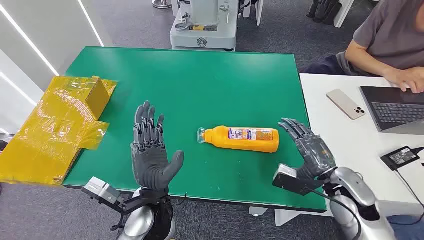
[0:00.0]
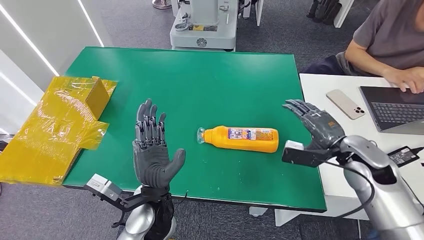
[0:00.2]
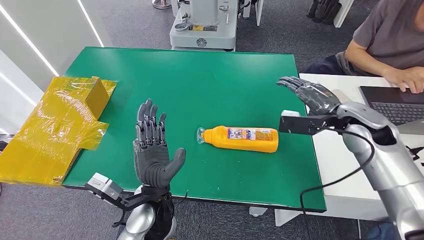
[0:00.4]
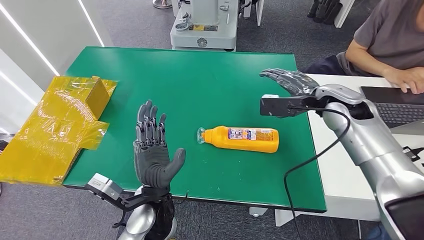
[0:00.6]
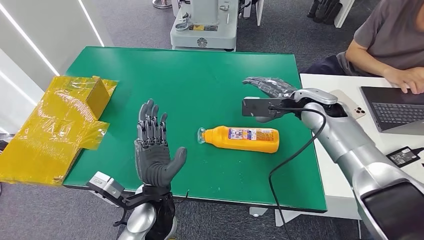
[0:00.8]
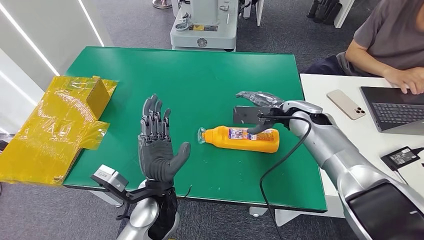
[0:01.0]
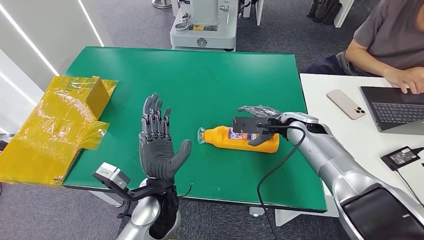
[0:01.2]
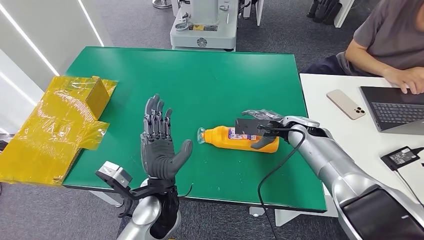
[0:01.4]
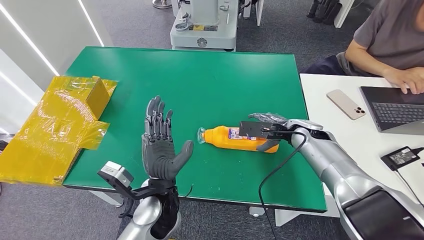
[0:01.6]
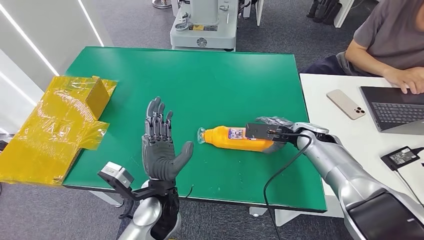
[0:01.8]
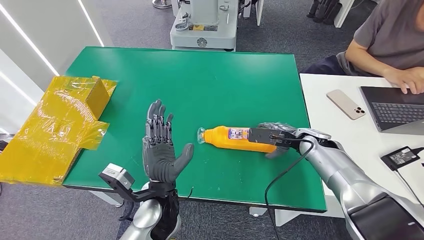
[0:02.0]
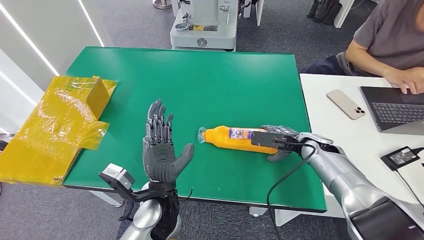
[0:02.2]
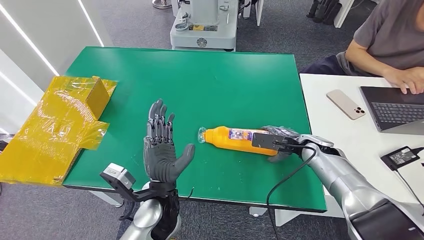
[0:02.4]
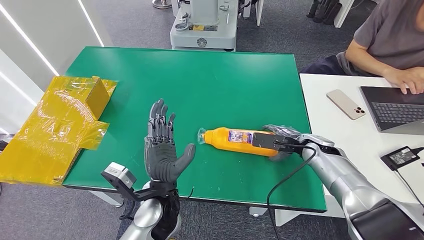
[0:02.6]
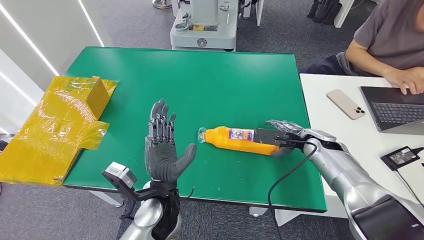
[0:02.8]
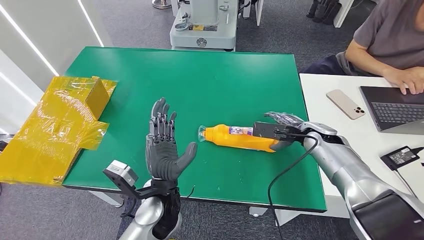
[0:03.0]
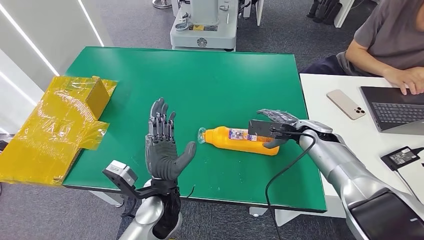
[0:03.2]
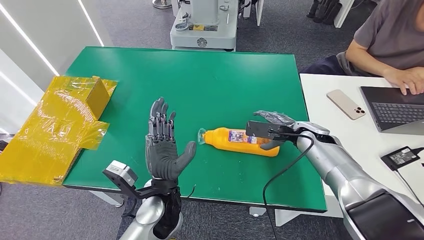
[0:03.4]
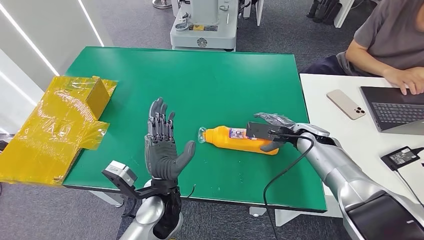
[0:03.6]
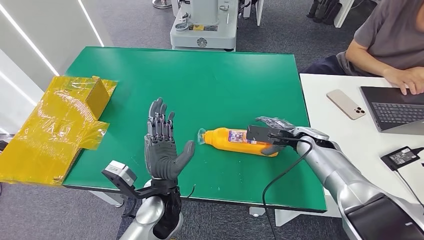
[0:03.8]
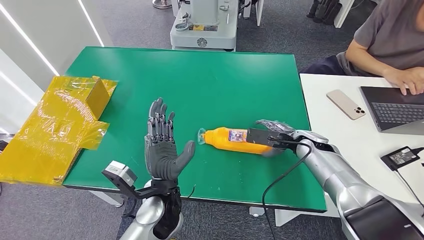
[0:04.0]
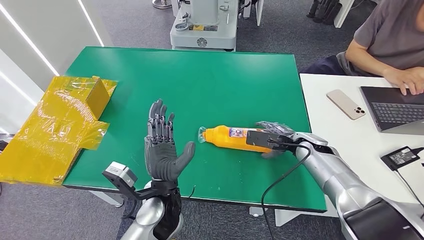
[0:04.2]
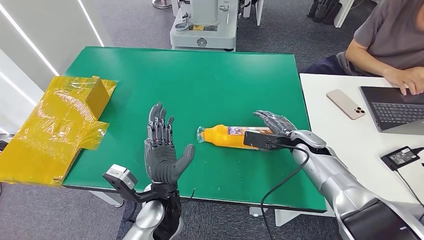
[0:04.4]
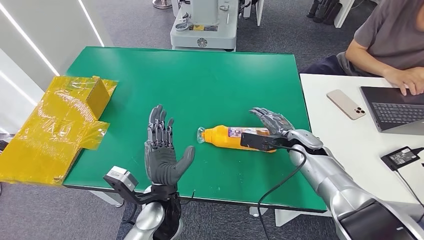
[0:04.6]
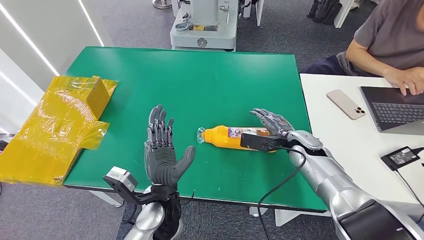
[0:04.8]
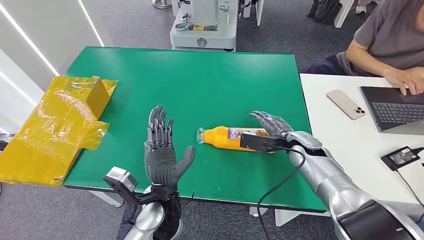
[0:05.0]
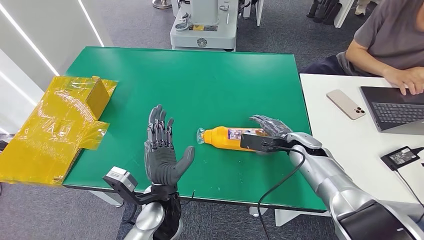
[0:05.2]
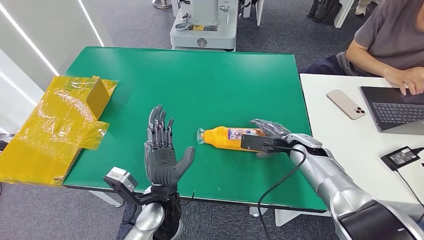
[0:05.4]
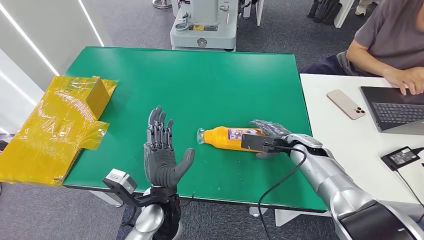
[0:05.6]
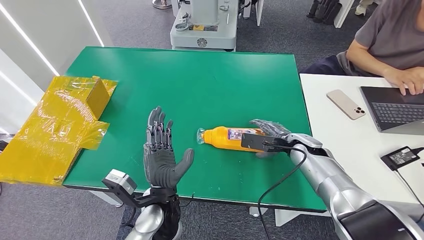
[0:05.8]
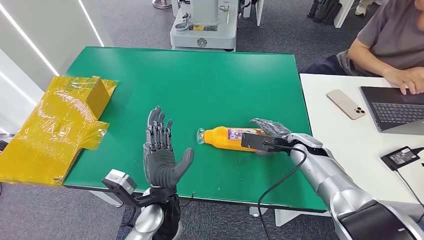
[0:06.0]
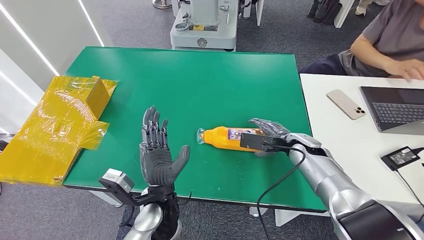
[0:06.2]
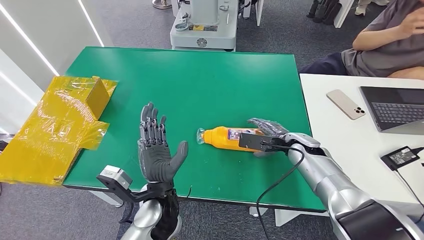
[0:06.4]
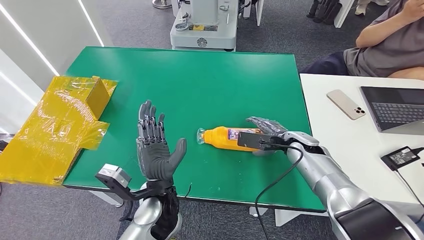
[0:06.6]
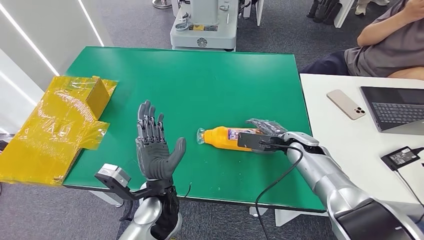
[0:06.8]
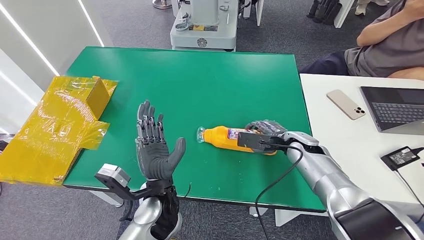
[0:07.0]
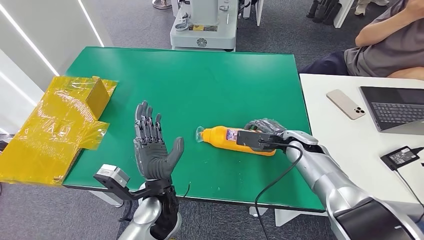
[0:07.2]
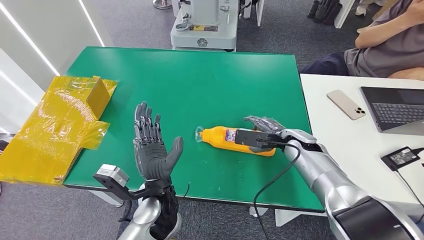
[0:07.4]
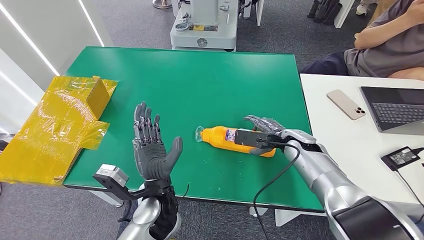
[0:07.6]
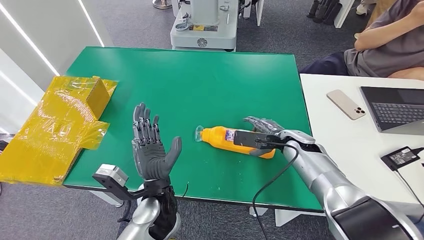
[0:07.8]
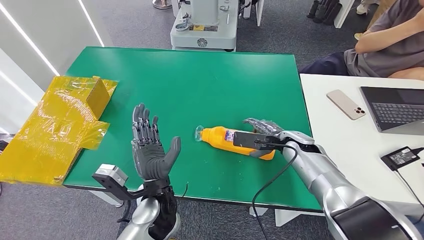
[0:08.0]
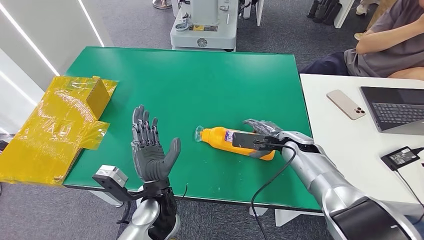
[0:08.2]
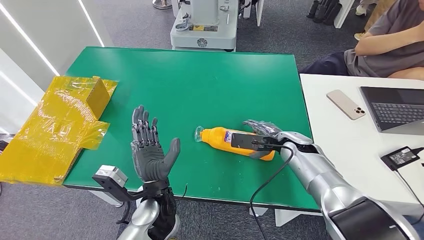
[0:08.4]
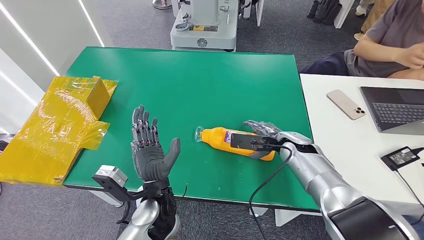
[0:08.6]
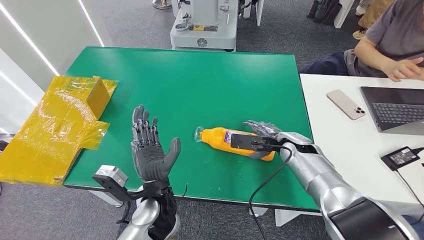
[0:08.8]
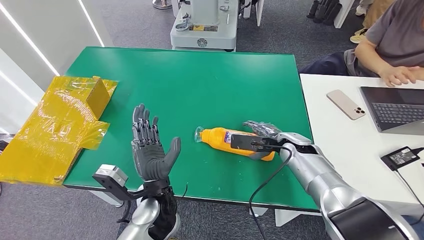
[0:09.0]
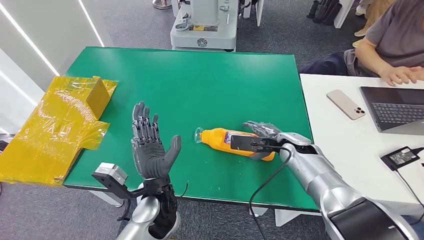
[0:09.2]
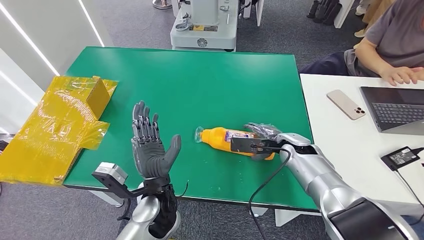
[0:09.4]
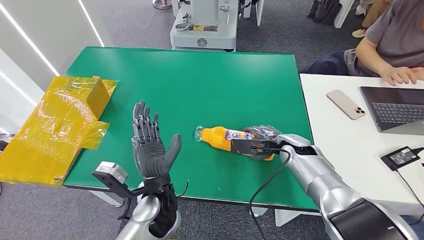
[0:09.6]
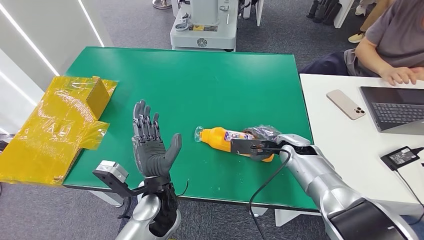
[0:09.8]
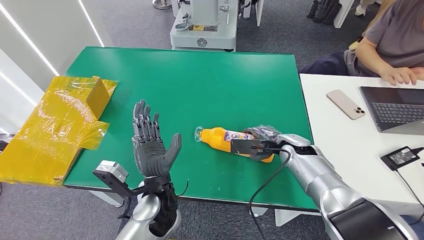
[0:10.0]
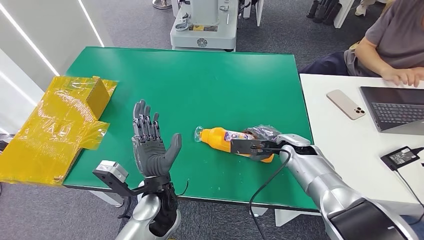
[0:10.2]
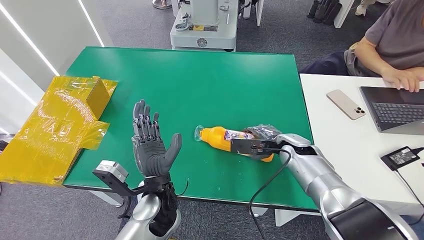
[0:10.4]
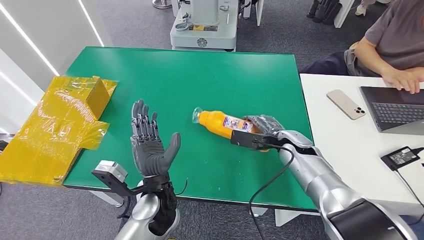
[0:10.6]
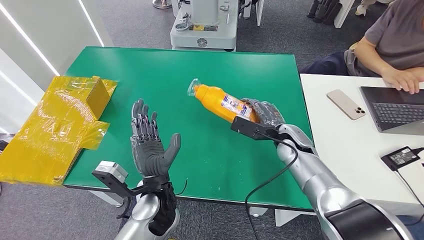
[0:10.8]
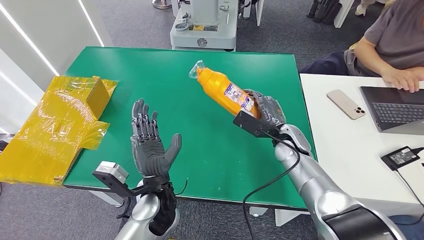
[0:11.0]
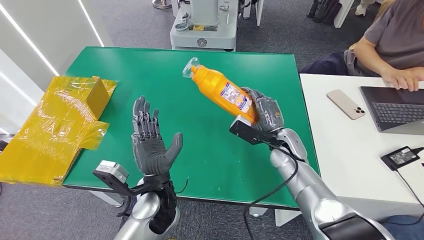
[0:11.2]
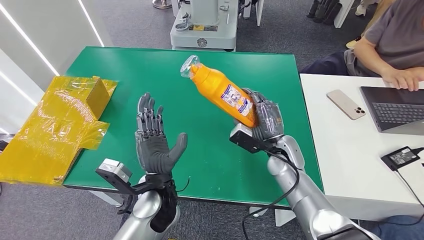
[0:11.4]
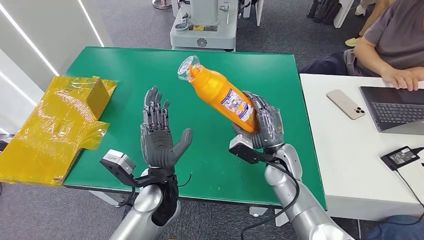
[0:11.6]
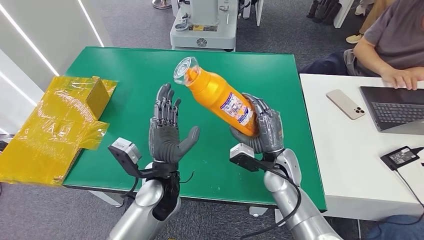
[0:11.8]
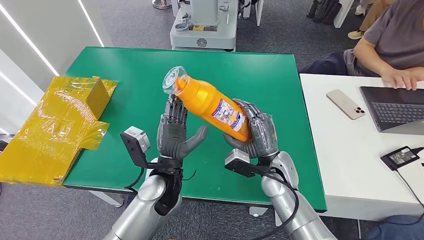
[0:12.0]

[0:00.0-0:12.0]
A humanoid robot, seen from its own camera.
Step, 0:00.0 to 0:11.0: Pick up the bottle from the table.
0:03.0 to 0:07.6: The hands make only small movements.
0:07.6 to 0:09.0: There are only small adjustments of the hands.
0:09.0 to 0:10.4: Both hands stay about where they are.
0:10.4 to 0:12.0: The right hand shifts approximately 15 cm to the left and backward.

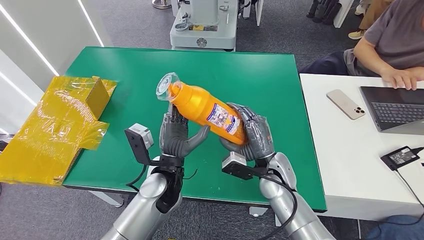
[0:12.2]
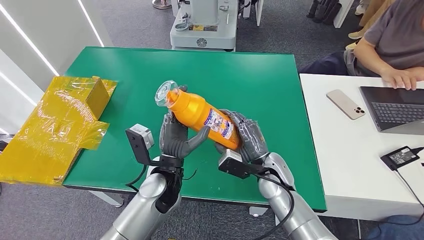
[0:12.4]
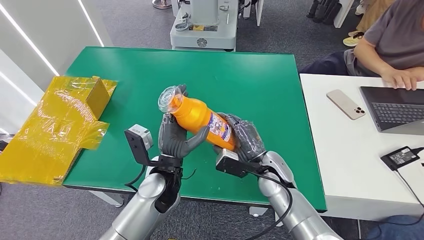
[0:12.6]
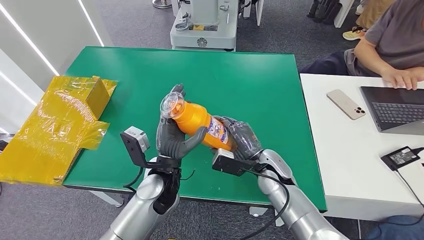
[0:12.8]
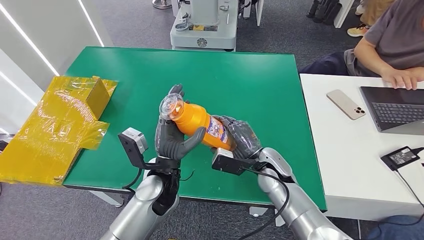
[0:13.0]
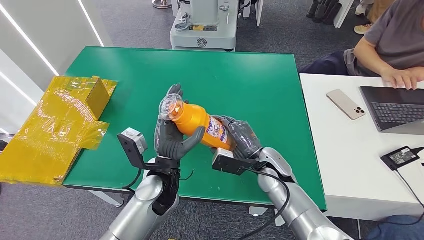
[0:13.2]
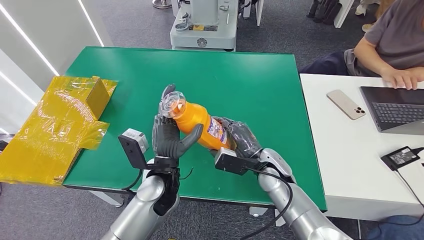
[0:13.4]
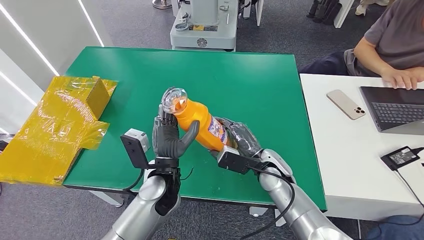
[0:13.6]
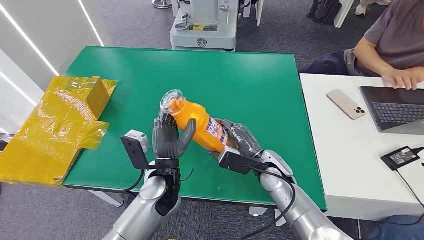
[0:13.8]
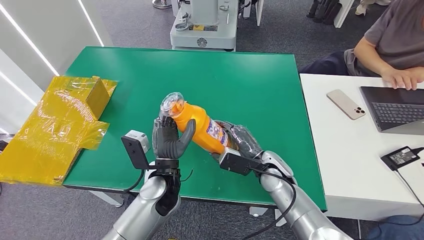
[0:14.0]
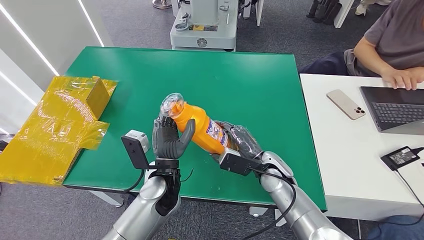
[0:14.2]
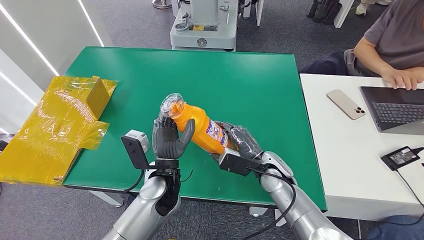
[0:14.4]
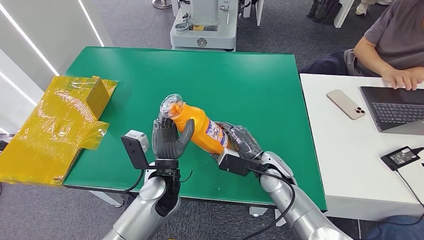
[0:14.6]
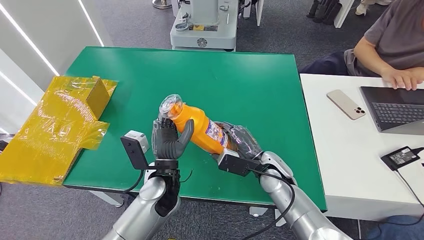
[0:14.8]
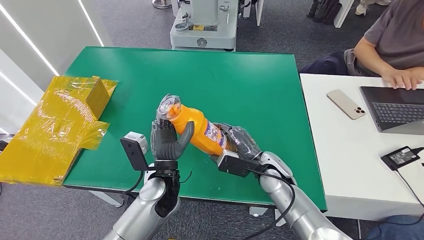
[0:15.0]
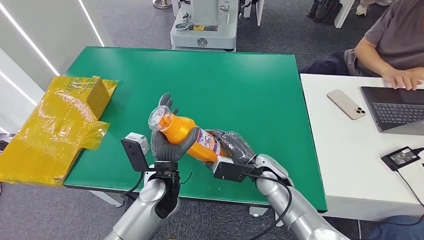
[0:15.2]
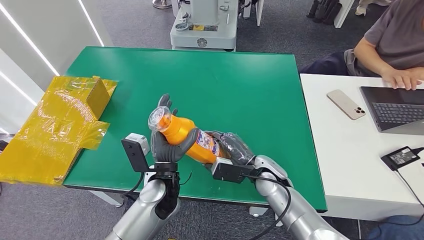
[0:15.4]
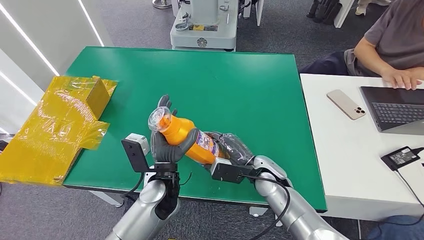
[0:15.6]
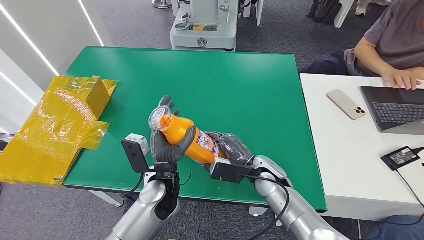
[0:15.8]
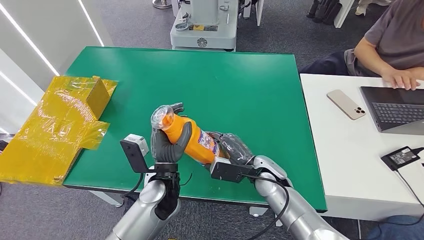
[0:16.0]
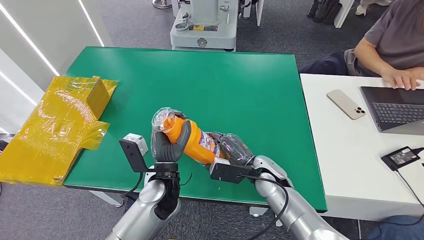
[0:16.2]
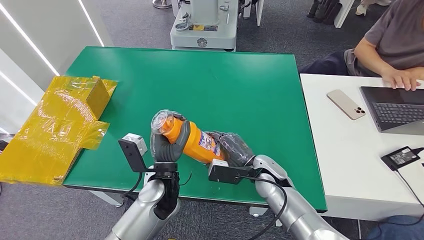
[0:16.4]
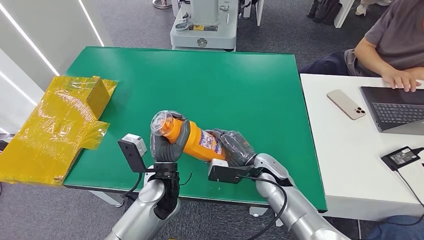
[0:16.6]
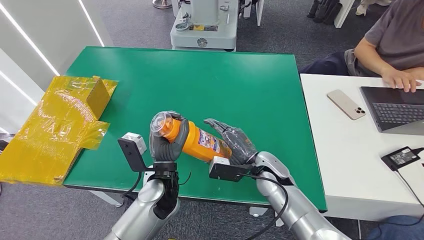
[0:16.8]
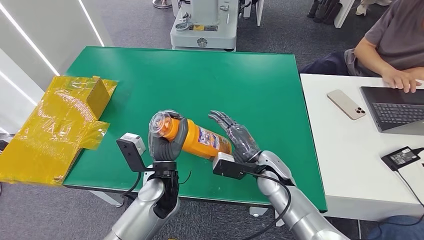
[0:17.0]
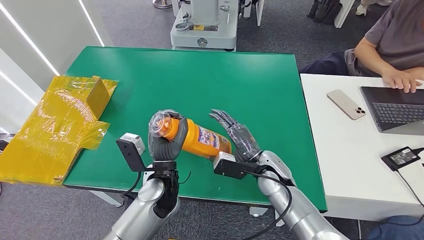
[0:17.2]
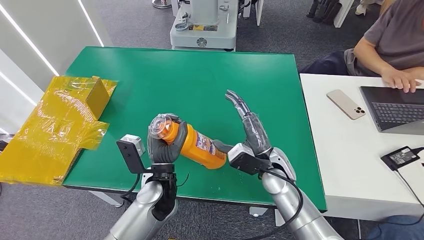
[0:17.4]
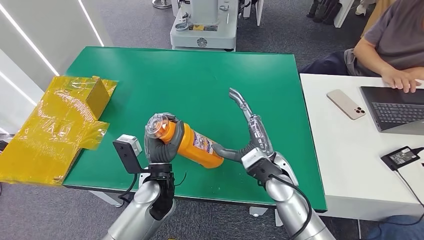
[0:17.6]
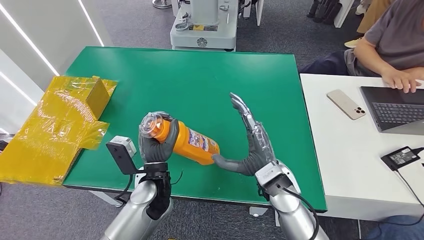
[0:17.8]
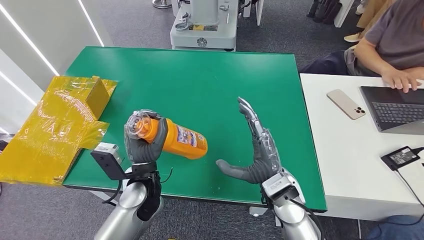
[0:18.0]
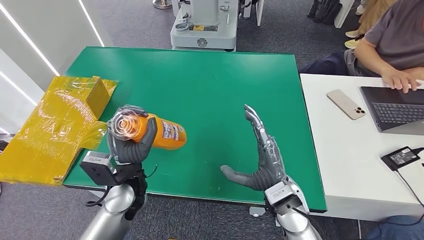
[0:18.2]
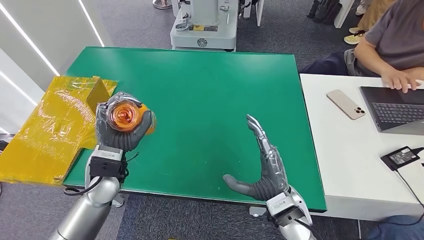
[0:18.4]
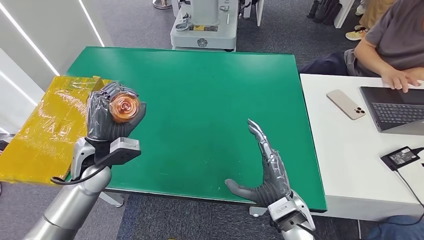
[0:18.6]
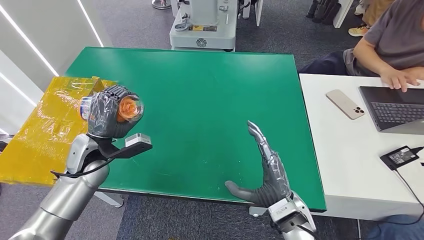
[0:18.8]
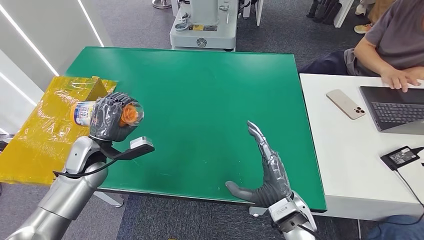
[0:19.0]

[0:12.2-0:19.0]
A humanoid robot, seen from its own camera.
0:13.6 to 0:15.0: Both hands stay about where they are.
0:15.0 to 0:16.2: There are only small adjustments of the hands.
0:16.2 to 0:17.6: The right hand moves upward, approximately 5 cm.
0:17.6 to 0:19.0: The left hand shifts about 20 cm to the left. Meanwhile the right hand is displaced backward by roughly 10 cm.
